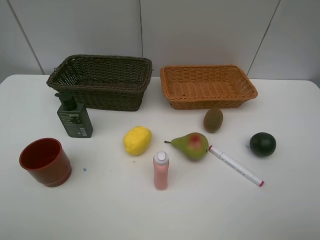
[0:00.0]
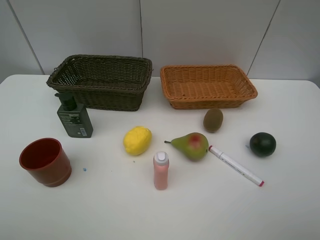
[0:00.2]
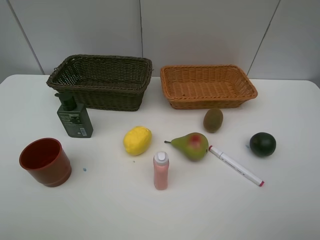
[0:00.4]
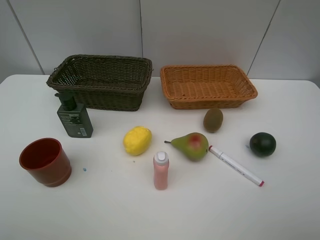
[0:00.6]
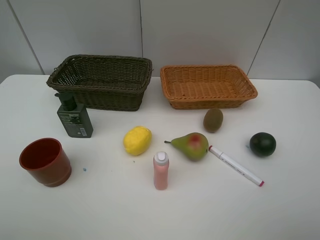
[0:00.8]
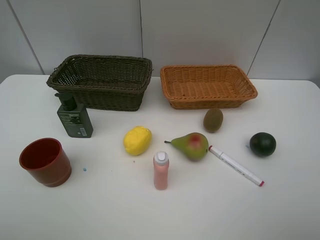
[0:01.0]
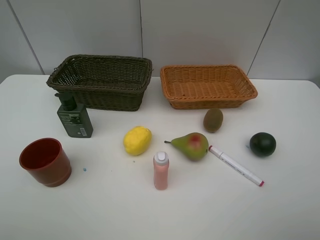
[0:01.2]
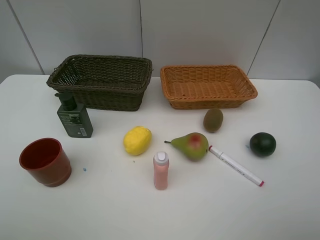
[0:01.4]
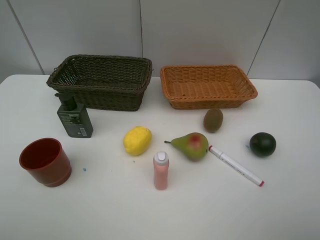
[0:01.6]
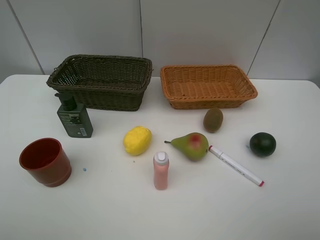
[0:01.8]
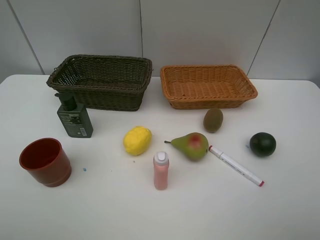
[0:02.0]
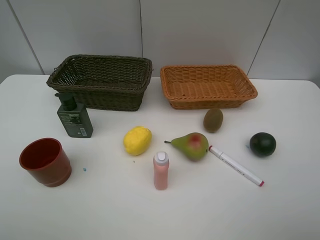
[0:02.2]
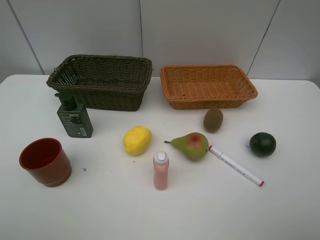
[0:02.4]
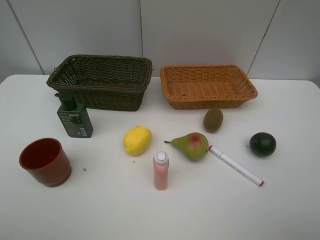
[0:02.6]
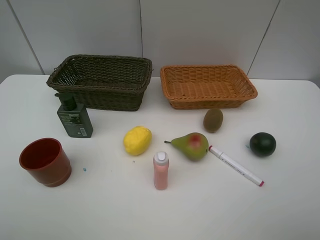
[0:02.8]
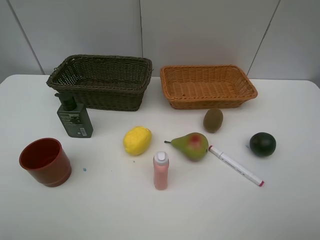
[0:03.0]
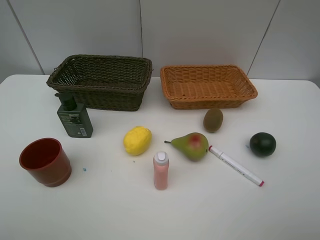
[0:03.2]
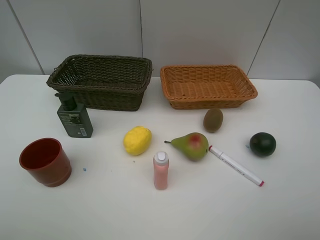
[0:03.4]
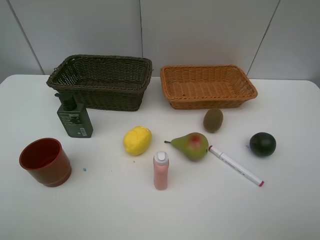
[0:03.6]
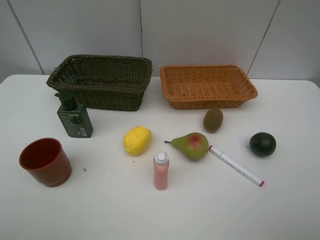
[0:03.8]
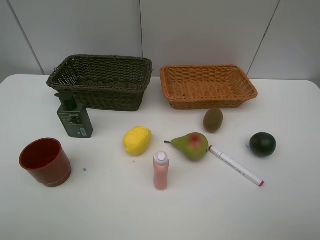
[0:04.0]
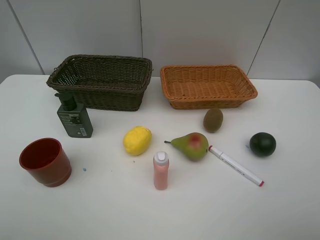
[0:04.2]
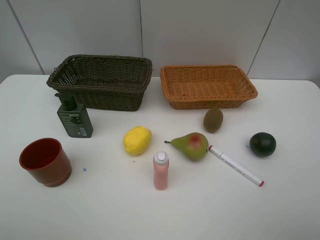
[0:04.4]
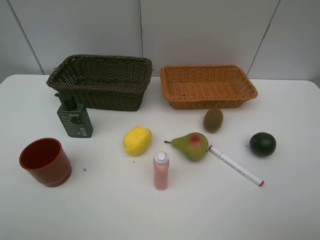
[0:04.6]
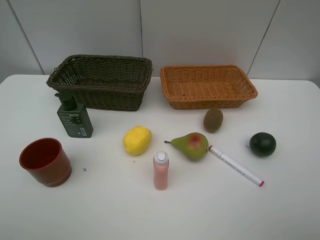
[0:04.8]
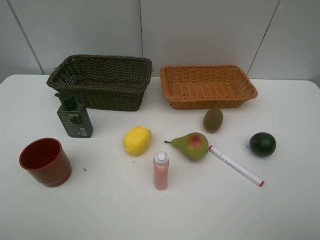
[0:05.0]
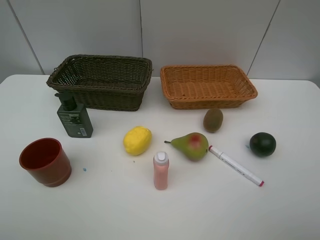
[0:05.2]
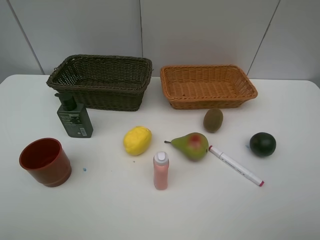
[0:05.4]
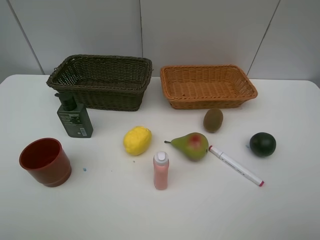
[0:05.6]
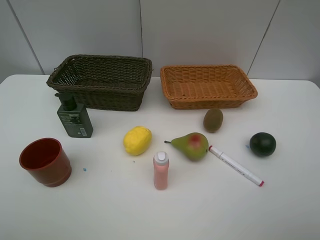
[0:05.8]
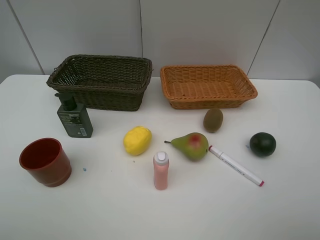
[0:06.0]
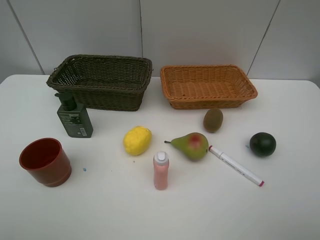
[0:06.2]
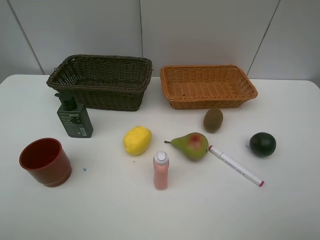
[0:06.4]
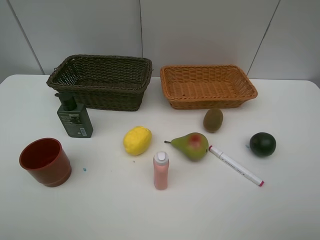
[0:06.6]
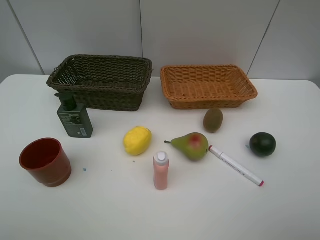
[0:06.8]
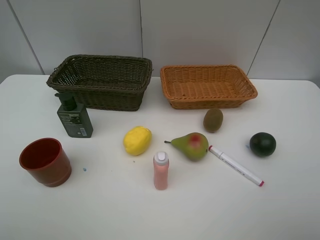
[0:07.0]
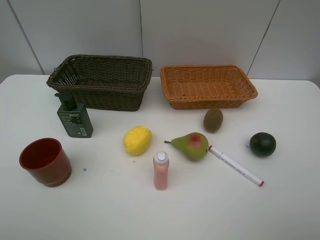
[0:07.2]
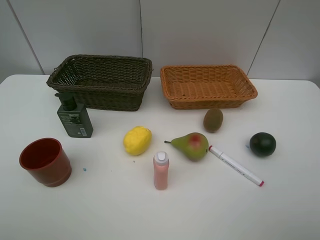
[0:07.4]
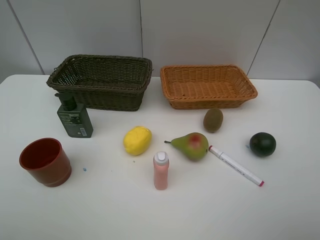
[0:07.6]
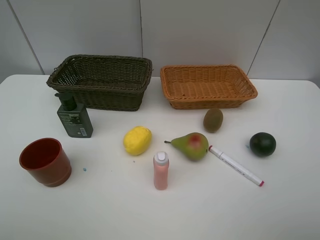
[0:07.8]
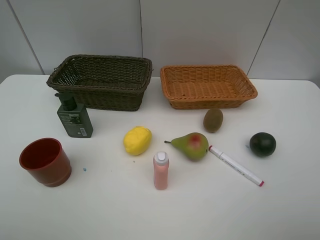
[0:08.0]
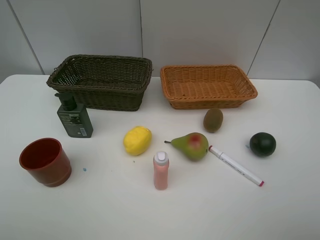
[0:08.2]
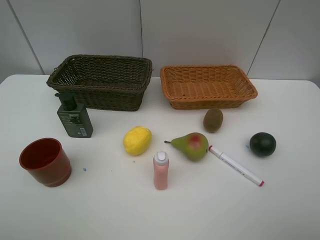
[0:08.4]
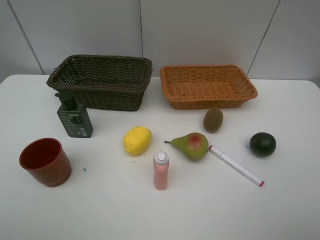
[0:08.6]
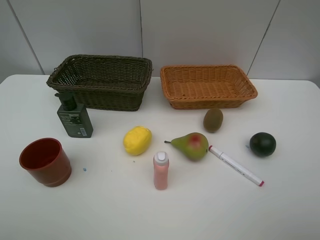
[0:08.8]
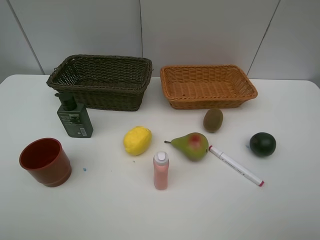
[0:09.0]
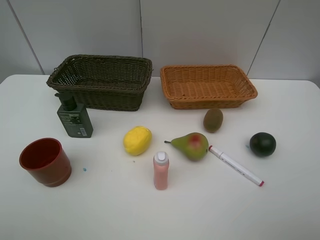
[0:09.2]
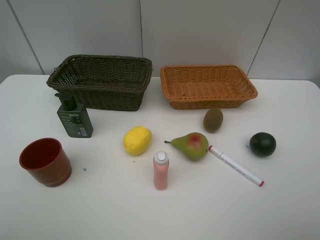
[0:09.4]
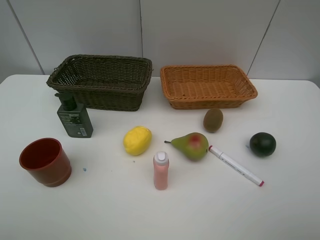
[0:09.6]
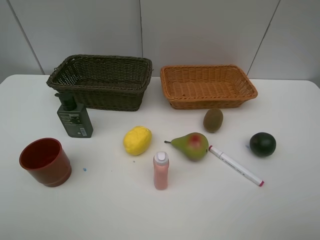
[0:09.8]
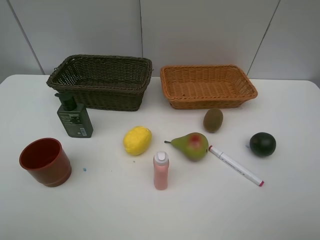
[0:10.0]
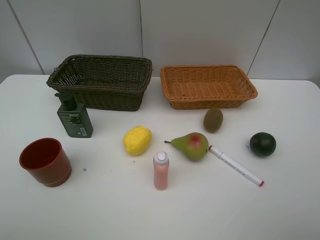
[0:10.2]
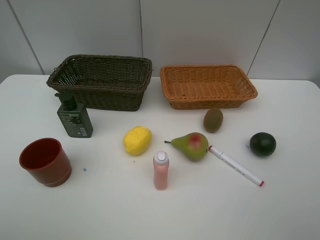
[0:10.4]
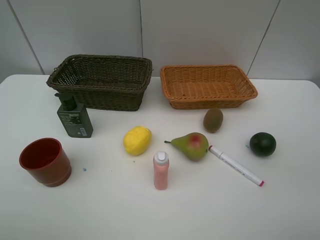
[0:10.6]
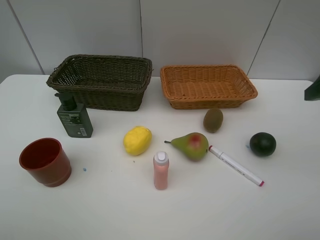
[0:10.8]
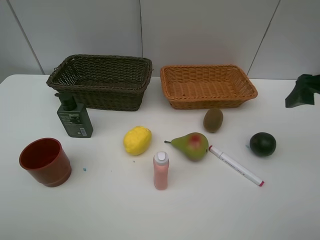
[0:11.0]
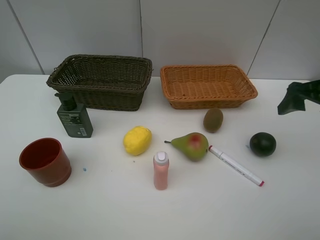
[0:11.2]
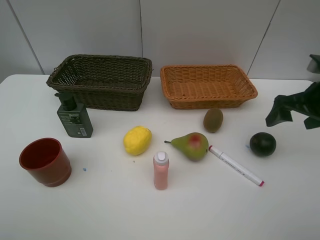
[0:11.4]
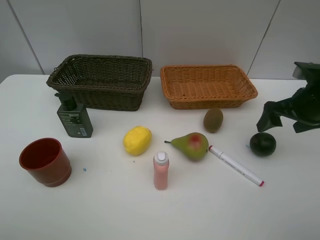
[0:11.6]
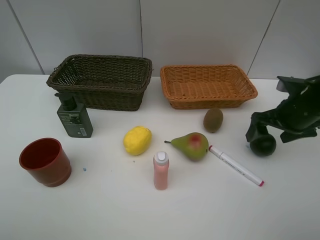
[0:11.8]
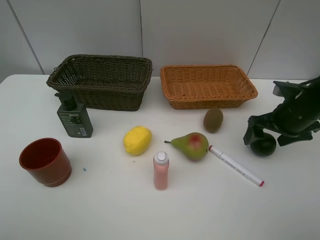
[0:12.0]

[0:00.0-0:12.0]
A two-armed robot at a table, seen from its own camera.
Task of the whole recording: Place multiple objects separately in different baskets.
0:00.0 to 0:09.0: Neither gripper changes place.
0:10.4 to 0:12.0: The right gripper heads forward and downward, covering about 25 cm.

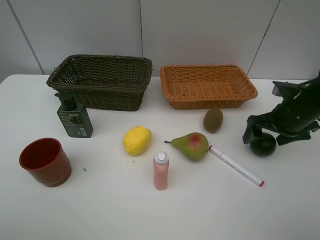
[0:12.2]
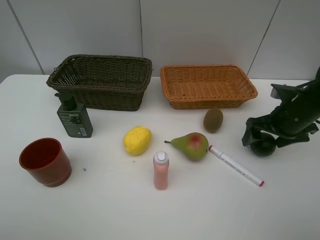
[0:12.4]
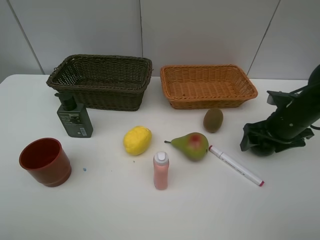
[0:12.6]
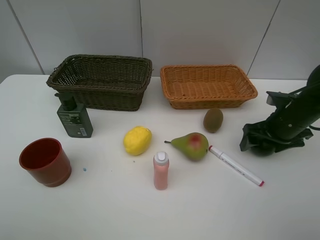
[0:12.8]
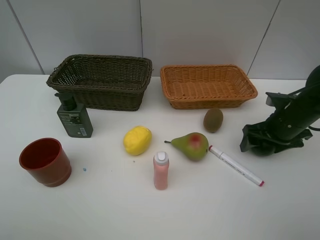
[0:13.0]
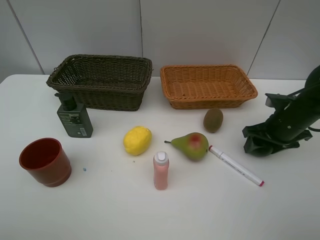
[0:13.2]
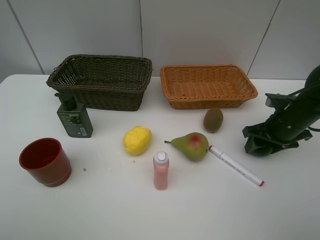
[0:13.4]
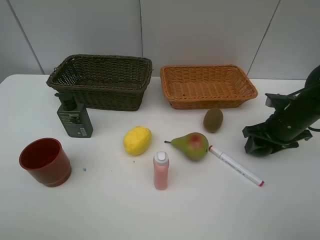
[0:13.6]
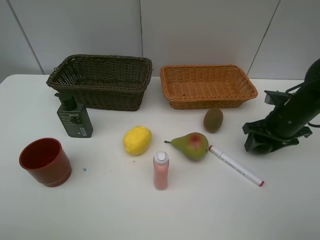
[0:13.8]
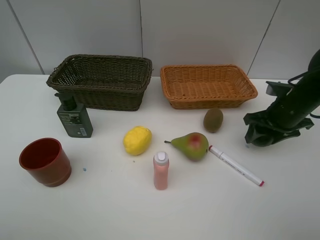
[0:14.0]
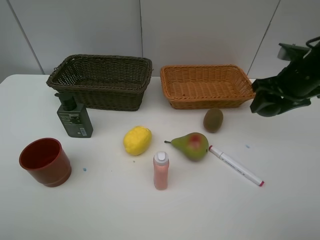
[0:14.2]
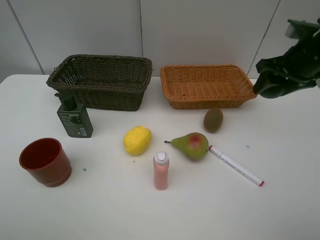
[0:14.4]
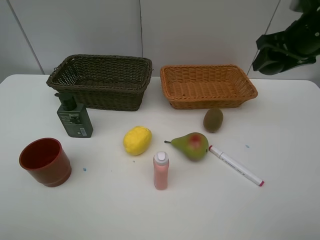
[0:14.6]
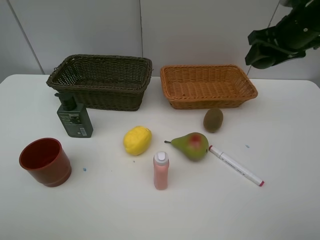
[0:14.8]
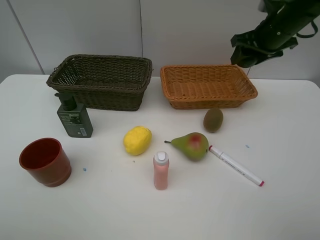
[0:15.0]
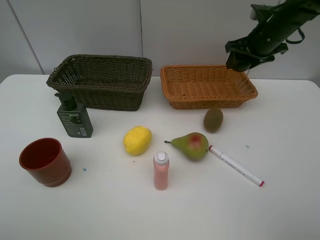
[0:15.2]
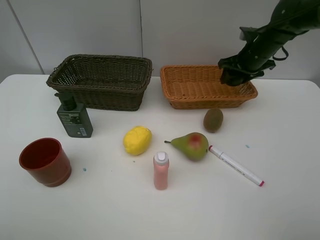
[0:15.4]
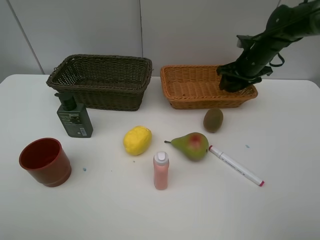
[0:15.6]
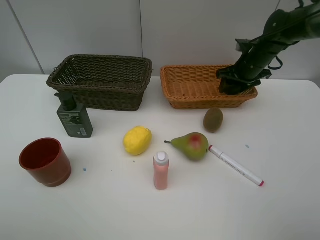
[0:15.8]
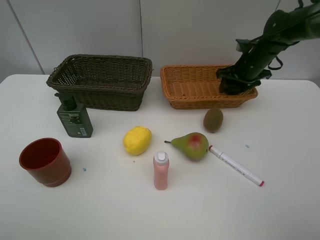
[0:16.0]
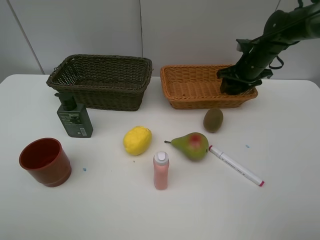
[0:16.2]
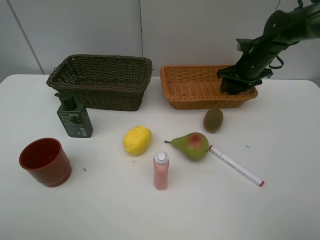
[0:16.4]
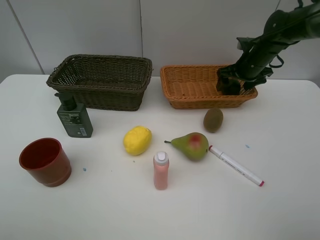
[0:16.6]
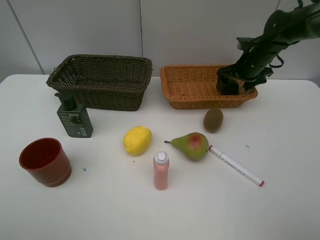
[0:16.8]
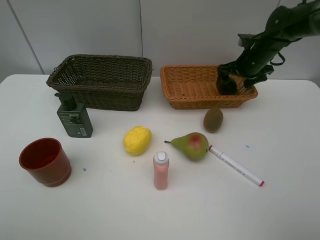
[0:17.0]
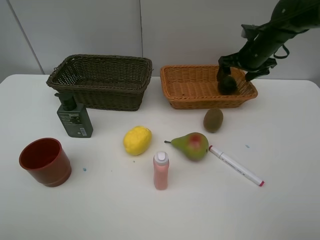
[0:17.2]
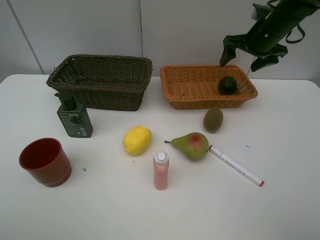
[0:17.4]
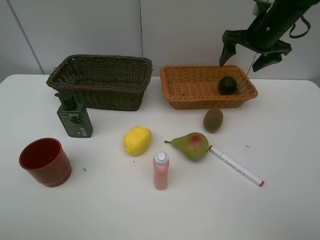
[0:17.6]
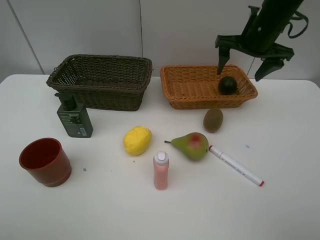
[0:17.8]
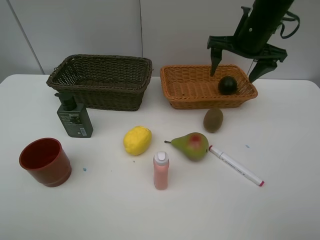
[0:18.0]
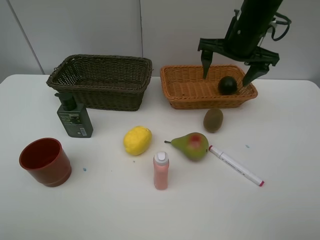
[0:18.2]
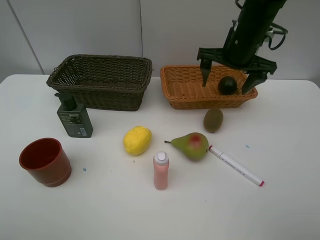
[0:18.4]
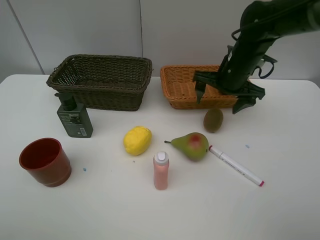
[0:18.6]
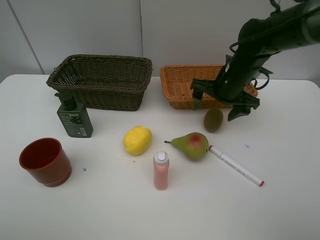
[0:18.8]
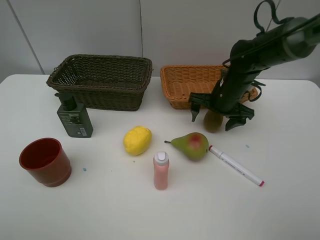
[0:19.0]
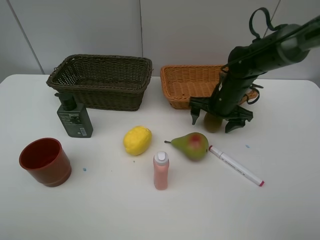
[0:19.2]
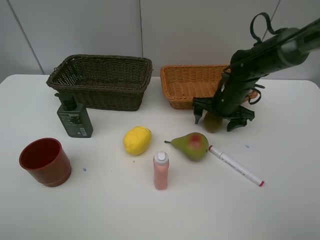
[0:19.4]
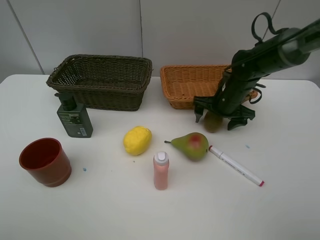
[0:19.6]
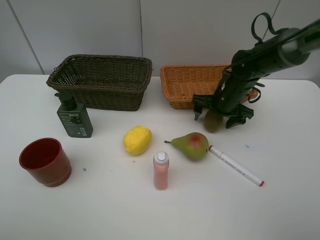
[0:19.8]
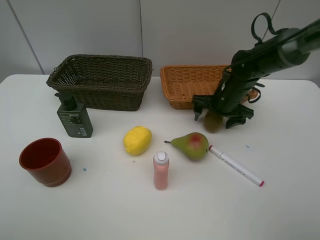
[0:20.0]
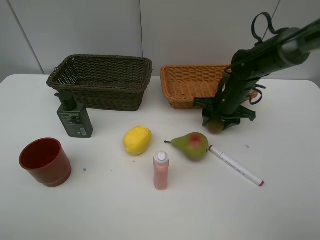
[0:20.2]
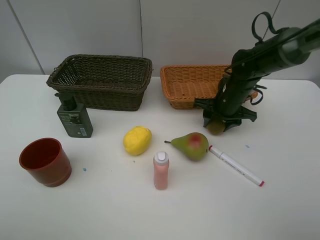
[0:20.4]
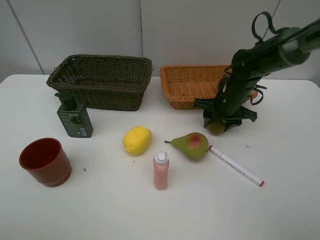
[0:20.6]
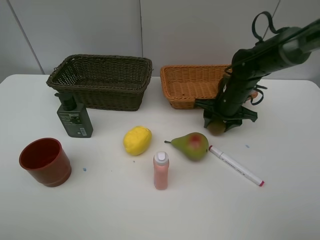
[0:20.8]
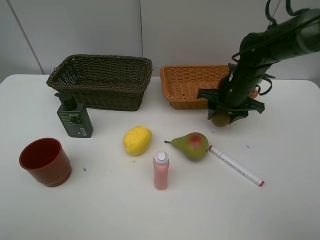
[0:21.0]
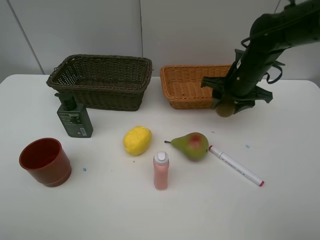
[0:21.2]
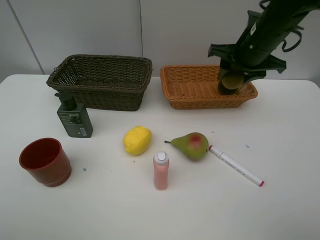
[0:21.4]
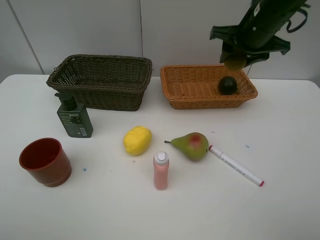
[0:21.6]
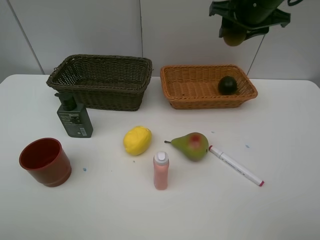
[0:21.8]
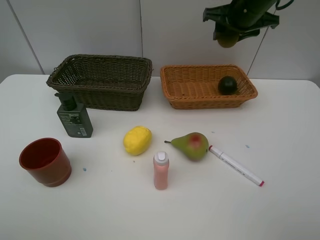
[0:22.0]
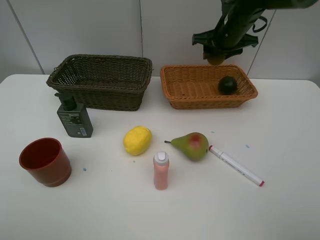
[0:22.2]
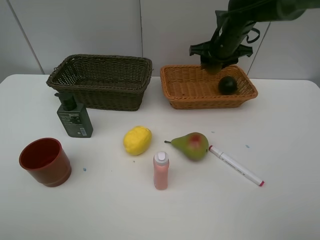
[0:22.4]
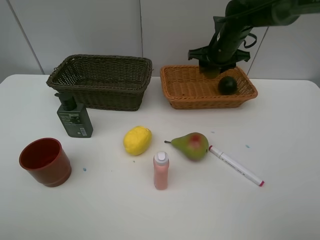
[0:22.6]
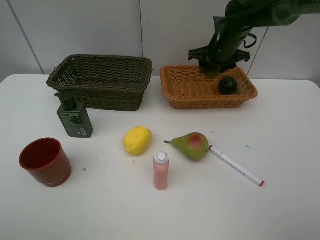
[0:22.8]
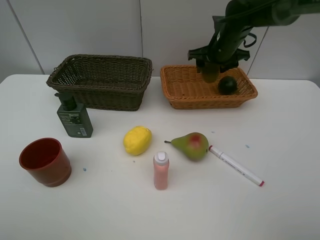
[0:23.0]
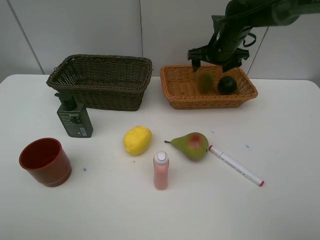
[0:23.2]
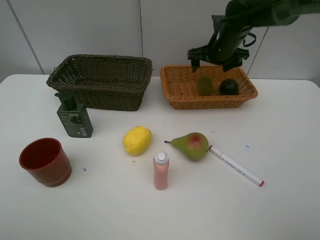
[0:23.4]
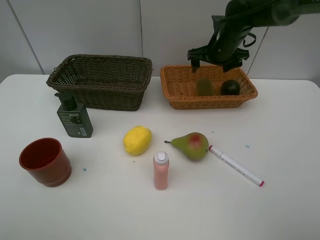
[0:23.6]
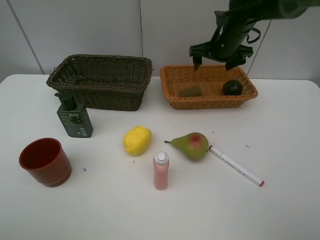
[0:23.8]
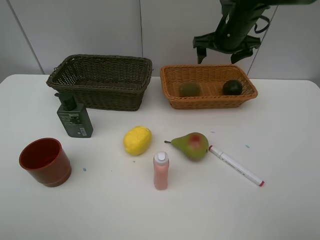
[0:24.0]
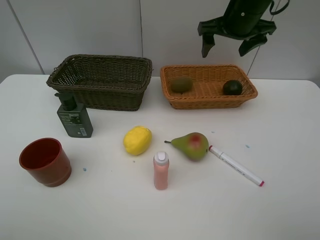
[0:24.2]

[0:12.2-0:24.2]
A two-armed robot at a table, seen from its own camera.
Task of the whole recording: Place multiple objects separately in different baskets.
Step, 0:14.2 to 0:17.2: Place the avocado in the light basket with right gripper.
Step, 0:17.4 to 0:21.0: Pick up kiwi with right gripper.
Step, 0:21.2 to 0:23.4: Place the kiwi in the light basket with right gripper.
0:12.2 to 0:13.8: The right gripper closes up.
0:13.8 to 0:15.2: The right gripper moves forward and upward, approximately 20 cm.
0:15.2 to 0:16.6: The right gripper moves downward, approximately 5 cm, and opens its fingers.
0:16.6 to 0:18.2: The right gripper heads upward, to the left and backward, covering roughly 15 cm.
0:18.2 to 0:19.8: The right gripper shifts approximately 15 cm downward.
0:19.8 to 0:21.2: The right gripper travels upward by some 10 cm, and closes its fingers.
0:21.2 to 0:22.6: The right gripper shifts approximately 10 cm forward, and goes upward and returns, approximately 10 cm each way.
0:22.6 to 0:24.2: The right gripper heads upward and backward, covering approximately 10 cm, and opens.
